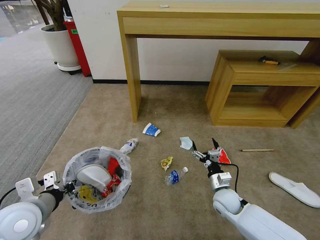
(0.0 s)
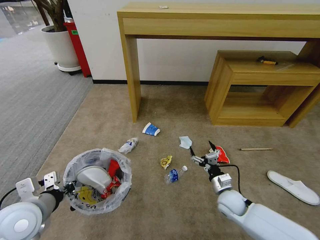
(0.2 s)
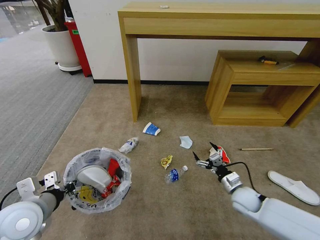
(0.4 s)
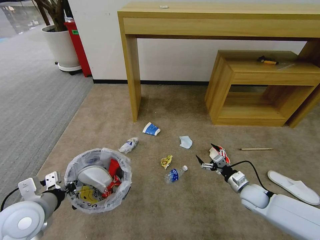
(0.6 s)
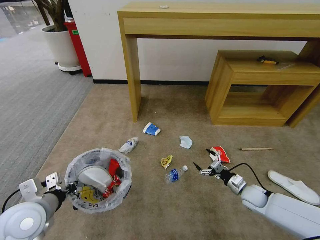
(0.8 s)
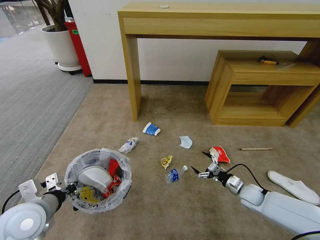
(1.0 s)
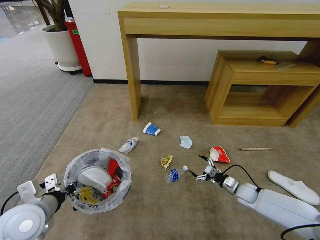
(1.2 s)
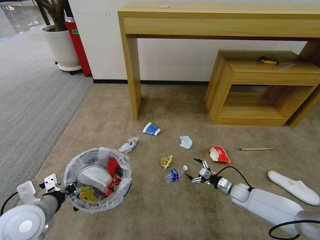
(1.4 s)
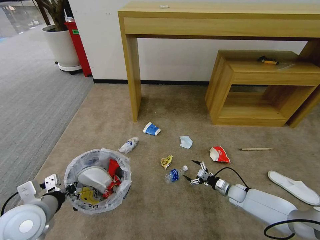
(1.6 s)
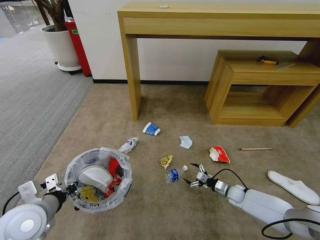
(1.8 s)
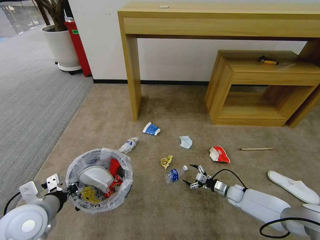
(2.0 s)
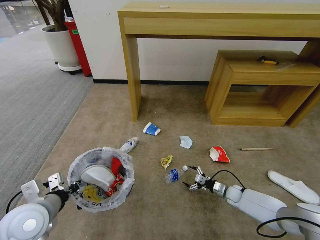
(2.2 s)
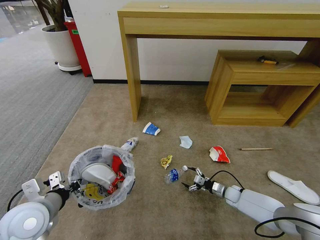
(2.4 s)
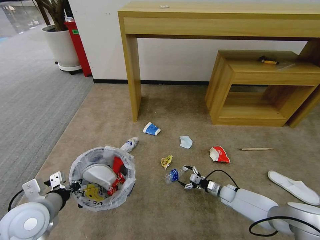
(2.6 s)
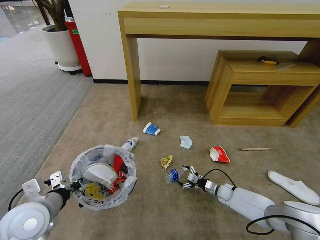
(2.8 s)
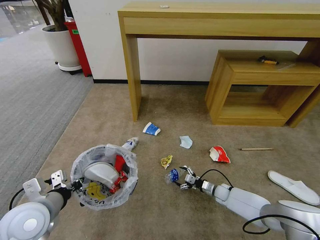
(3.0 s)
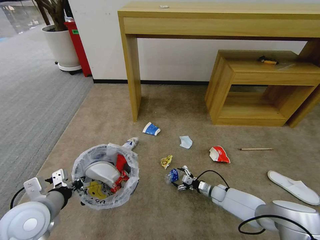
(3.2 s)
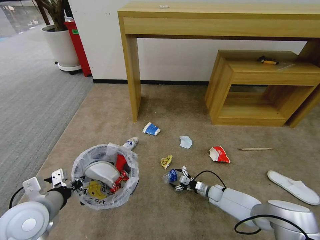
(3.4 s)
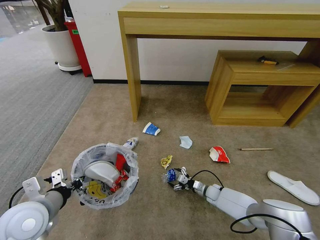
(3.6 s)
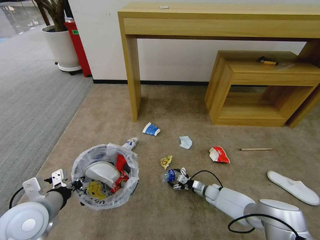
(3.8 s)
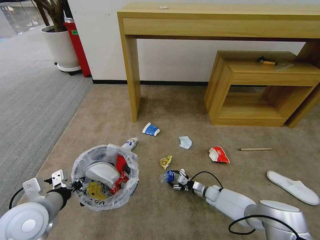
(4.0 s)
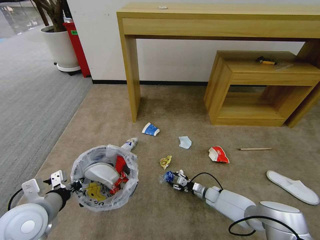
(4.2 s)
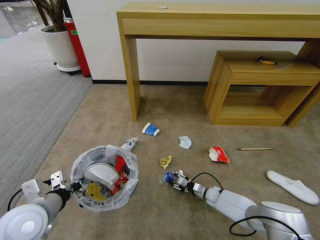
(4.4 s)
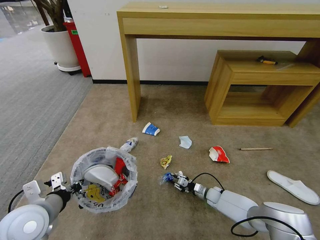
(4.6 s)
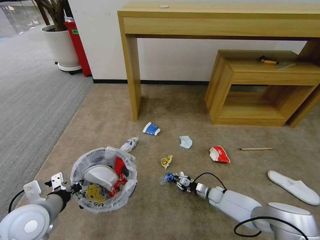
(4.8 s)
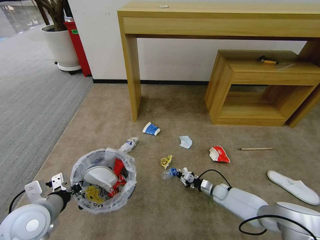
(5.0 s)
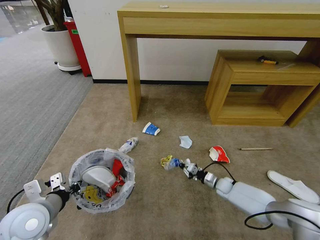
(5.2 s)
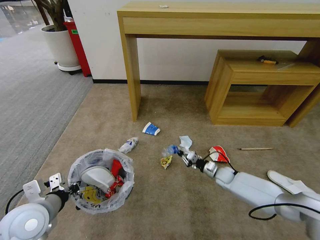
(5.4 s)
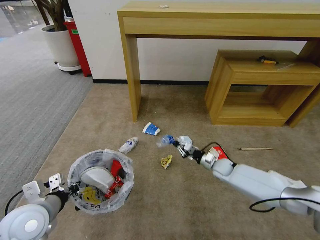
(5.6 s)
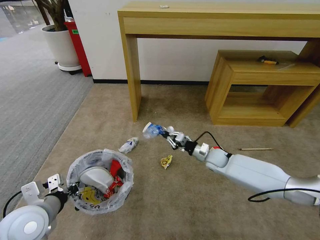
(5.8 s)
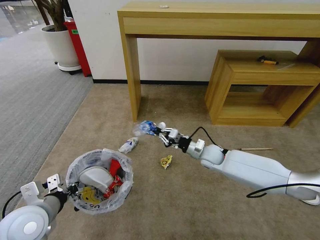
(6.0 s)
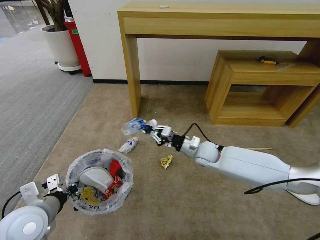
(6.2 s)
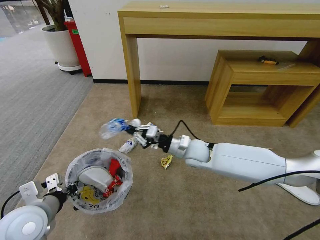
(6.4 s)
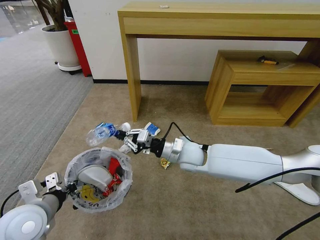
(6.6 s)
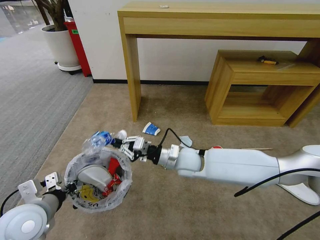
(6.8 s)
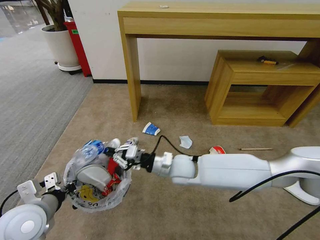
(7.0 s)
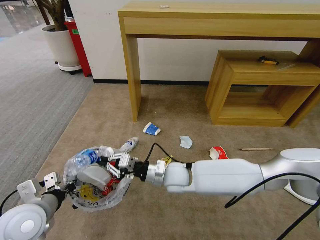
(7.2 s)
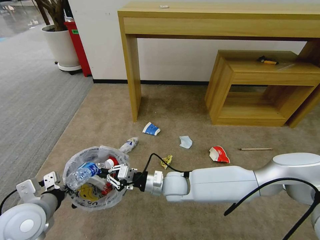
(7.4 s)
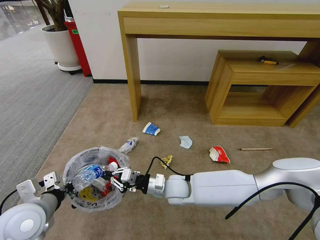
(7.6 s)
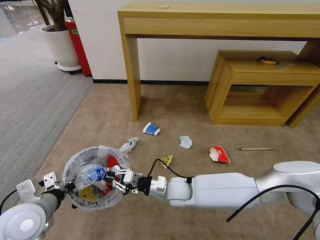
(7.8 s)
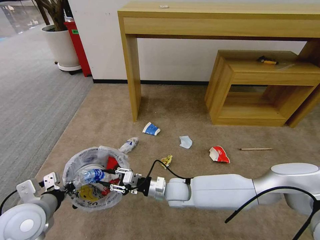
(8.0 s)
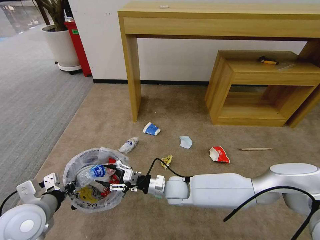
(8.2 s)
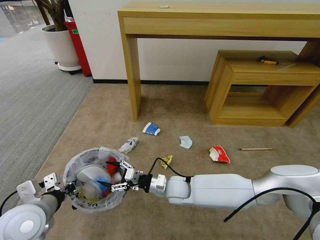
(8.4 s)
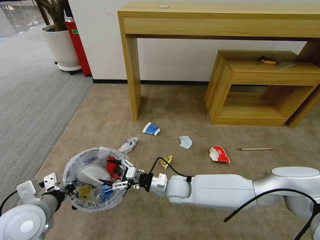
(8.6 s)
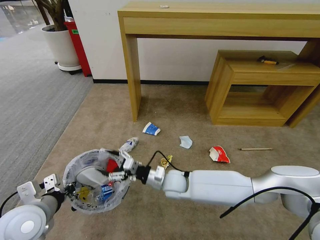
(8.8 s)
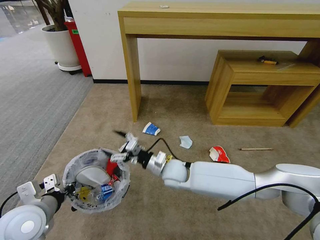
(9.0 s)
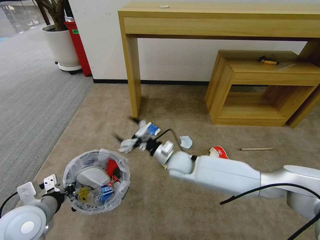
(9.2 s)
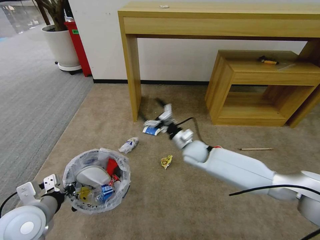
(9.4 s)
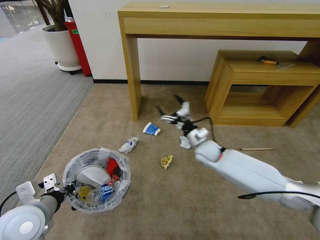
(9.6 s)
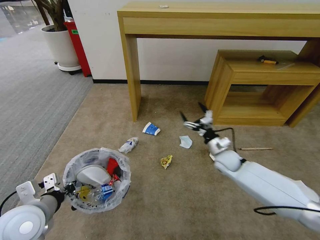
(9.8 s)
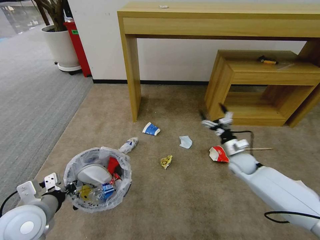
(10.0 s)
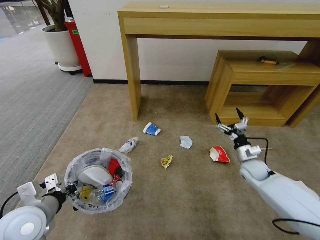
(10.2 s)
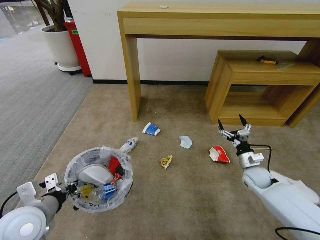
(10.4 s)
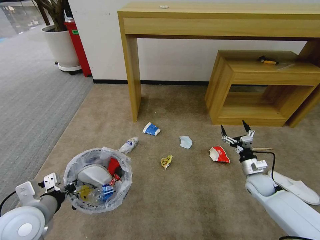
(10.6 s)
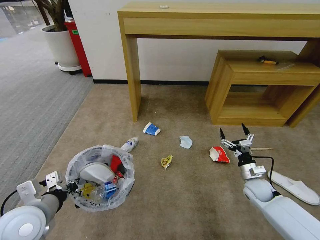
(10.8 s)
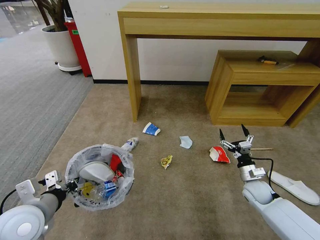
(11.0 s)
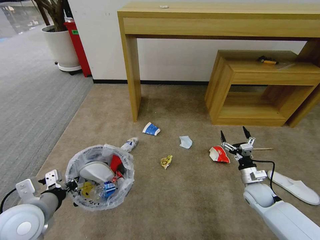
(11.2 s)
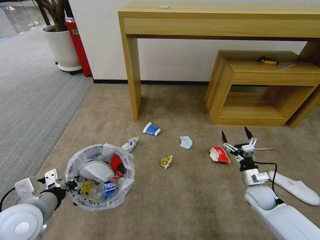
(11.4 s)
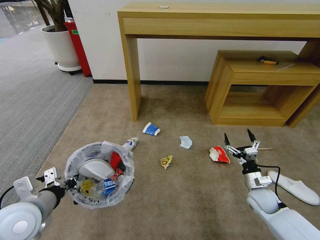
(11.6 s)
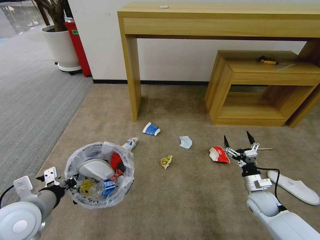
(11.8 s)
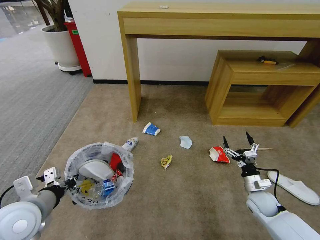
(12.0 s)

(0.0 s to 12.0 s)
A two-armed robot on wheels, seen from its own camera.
Task of the whole recording: Pick up the trash bin and place the garbage on the floor into it.
0.0 s - 1.6 s: The right gripper heads to the right, downward and forward, covering approximately 20 cm.
1.6 s - 3.0 s: The right gripper ends up approximately 5 cm from where it was.
3.0 s - 4.4 s: The right gripper closes its fingers.
4.4 s - 6.0 s: The right gripper shifts some 25 cm upward, and closes its fingers.
6.0 s - 7.6 s: The right gripper heads to the left and backward, covering roughly 20 cm.
7.6 s - 9.0 s: The right gripper shifts by about 5 cm, and opens.
9.0 s - 10.4 s: The right gripper travels to the right by some 35 cm.
10.4 s - 12.0 s: The right gripper travels backward by approximately 10 cm.

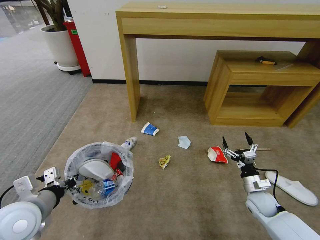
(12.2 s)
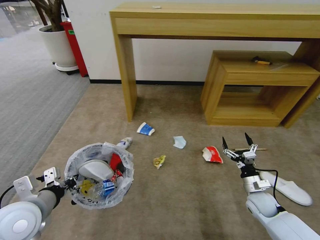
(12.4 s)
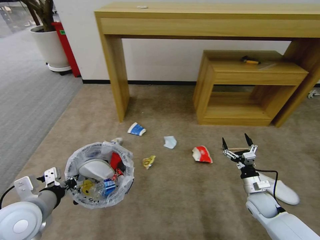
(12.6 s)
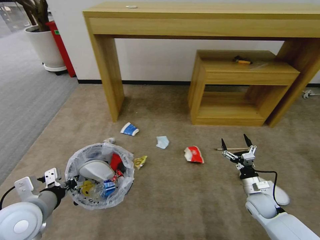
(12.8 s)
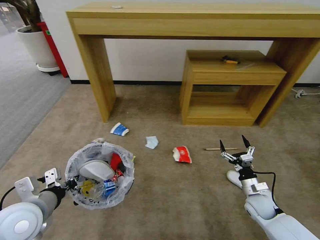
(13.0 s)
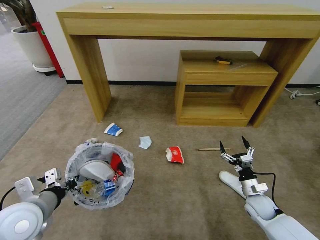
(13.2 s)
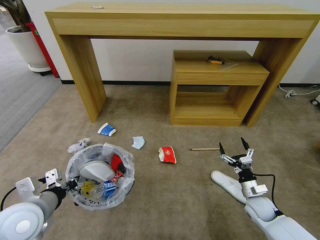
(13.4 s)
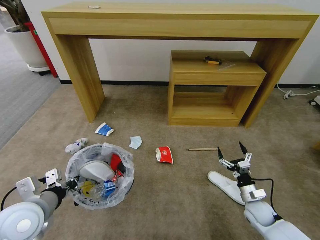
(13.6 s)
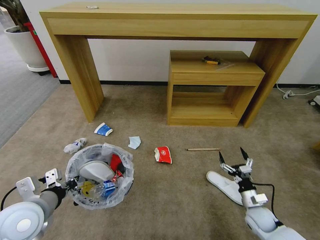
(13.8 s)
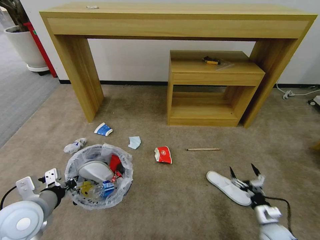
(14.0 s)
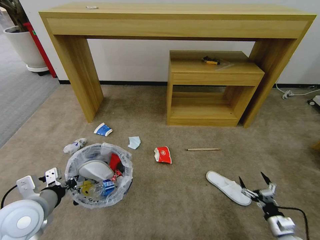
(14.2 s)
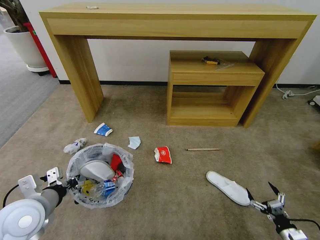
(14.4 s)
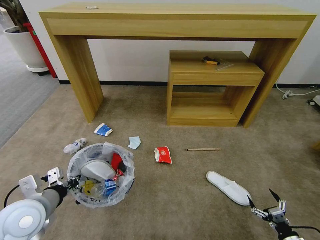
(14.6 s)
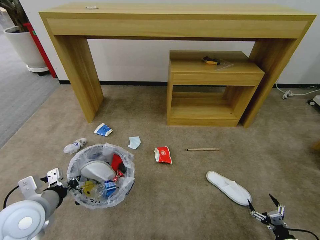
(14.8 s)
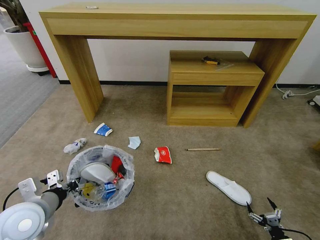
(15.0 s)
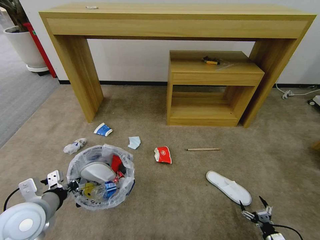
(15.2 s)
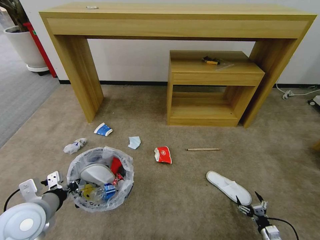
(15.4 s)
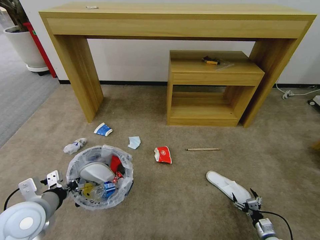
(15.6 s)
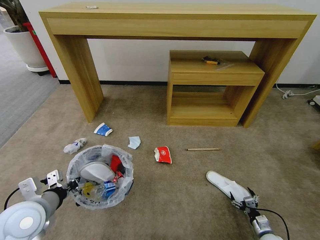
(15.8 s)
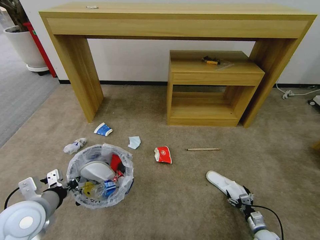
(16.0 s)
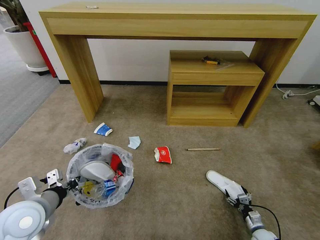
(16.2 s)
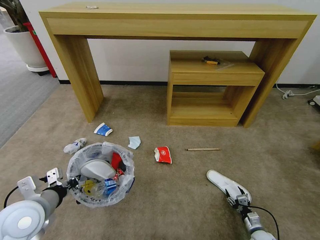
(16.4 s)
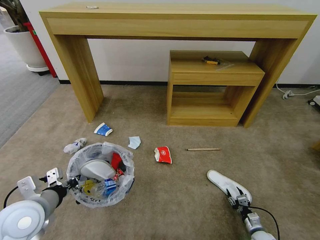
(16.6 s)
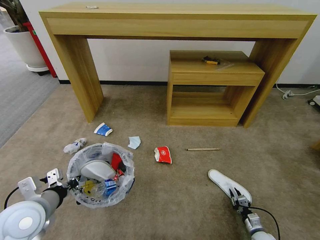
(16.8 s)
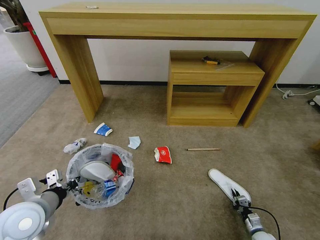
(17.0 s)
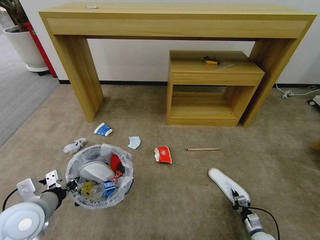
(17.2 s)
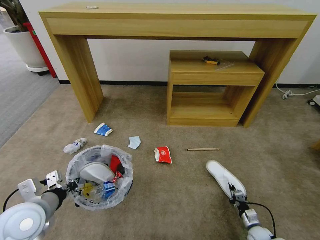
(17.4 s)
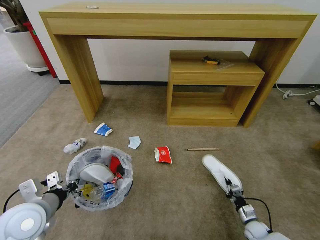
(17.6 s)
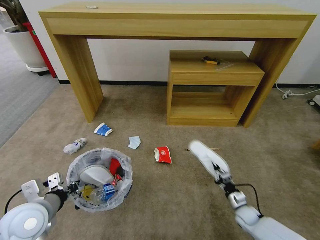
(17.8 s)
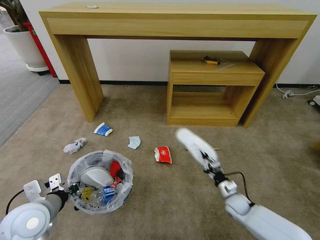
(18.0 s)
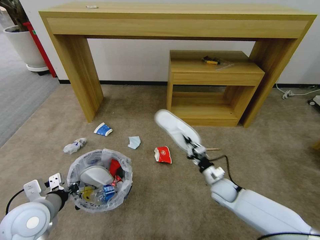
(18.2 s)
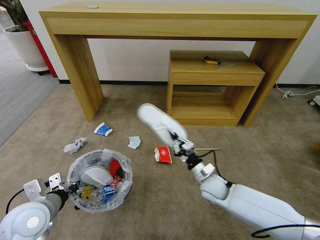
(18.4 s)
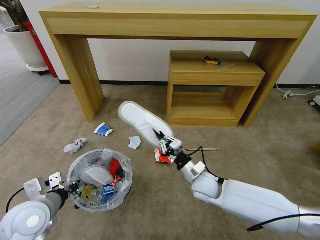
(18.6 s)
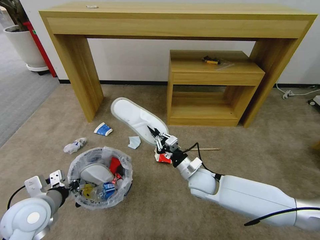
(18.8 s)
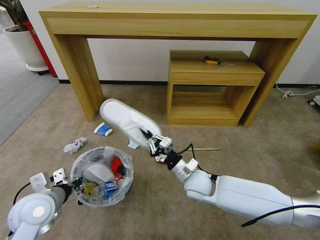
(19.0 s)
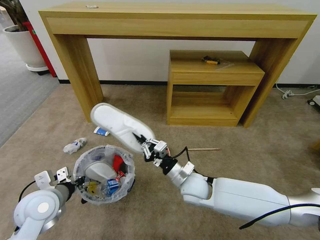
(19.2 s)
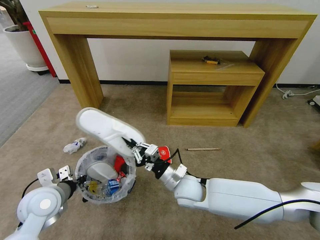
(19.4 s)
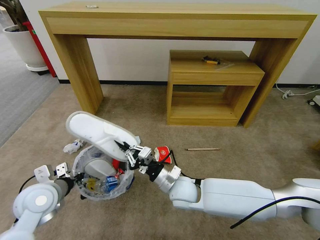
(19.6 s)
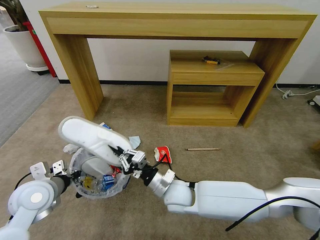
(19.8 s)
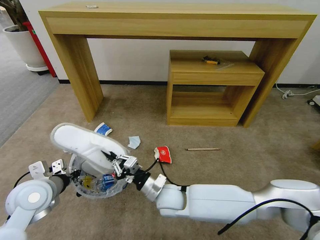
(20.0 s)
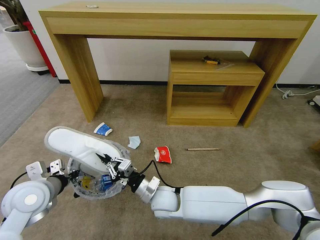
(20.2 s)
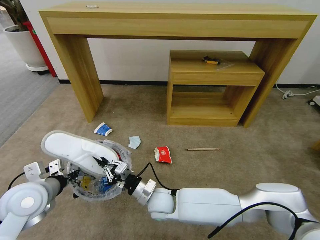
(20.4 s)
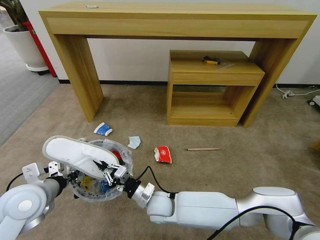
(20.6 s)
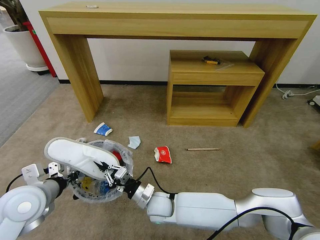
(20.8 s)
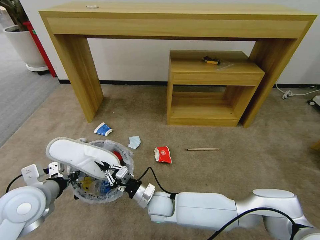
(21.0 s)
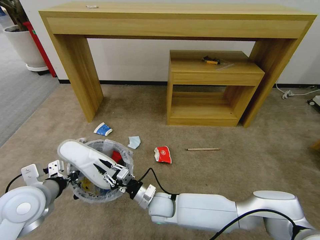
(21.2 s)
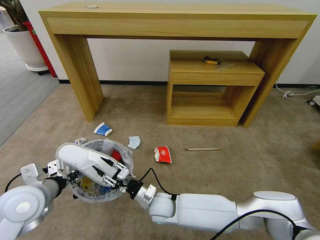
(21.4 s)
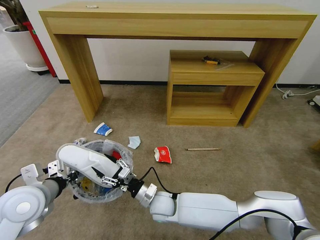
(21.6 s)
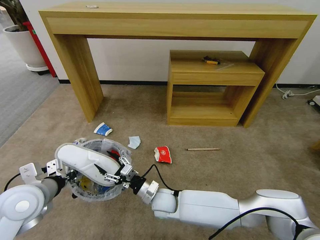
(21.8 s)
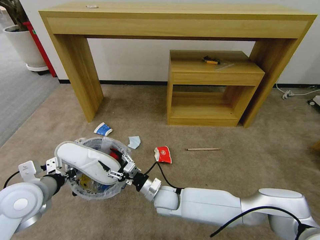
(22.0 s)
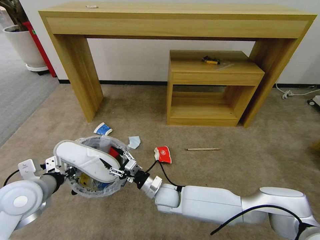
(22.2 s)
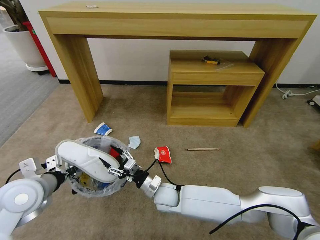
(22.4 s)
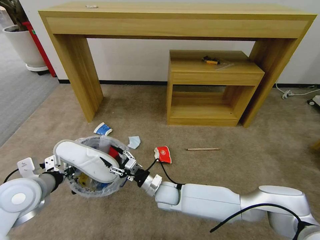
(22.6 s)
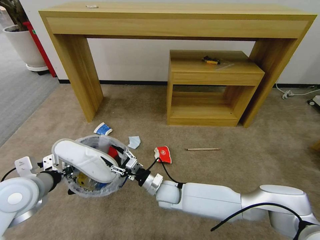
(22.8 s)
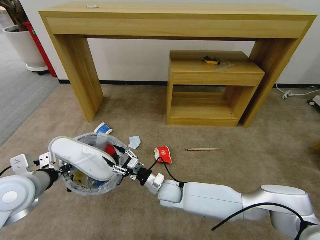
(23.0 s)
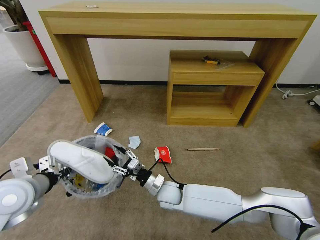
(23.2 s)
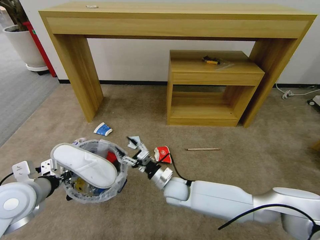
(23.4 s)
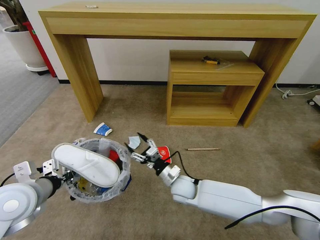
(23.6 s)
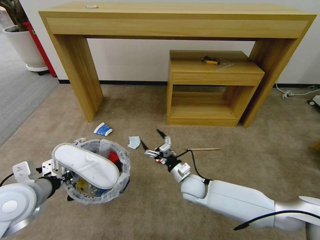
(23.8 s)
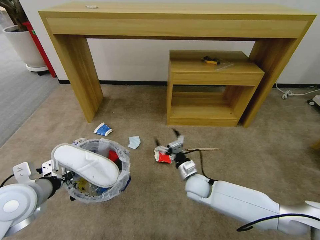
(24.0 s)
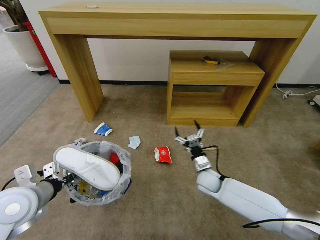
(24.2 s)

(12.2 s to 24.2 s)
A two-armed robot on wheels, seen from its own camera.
Task of the whole recording: Pick up the trash bin and place the garbage on the floor into it.
12.2 s - 13.8 s: The right gripper ends up roughly 5 cm from where it was.
13.8 s - 15.2 s: The right gripper travels backward, to the right and downward by roughly 20 cm.
15.2 s - 16.6 s: The right gripper shifts approximately 10 cm forward and to the left, and closes.
16.6 s - 18.2 s: The right gripper moves upward, to the left and forward, about 30 cm, and closes its fingers.
18.2 s - 19.8 s: The left gripper goes some 5 cm forward, while the right gripper shifts approximately 25 cm to the left and upward.
19.8 s - 21.2 s: The right gripper heads downward and to the left, covering approximately 10 cm.
21.2 s - 22.6 s: The grippers move only a little.
22.6 s - 24.2 s: The right gripper heads to the right, covering roughly 15 cm, and opens its fingers.
